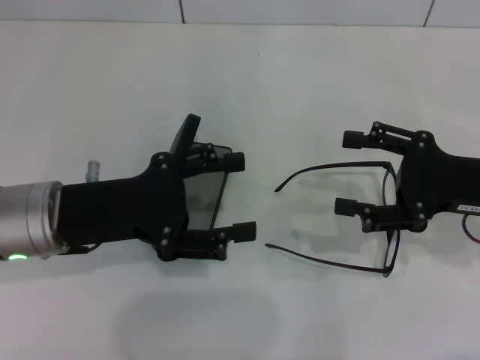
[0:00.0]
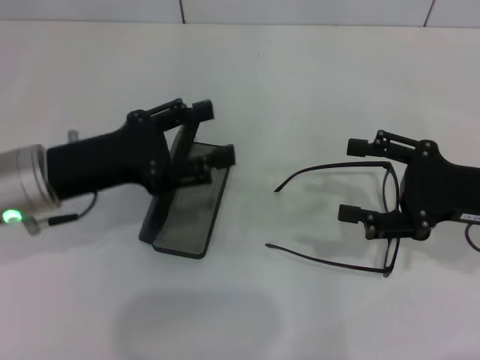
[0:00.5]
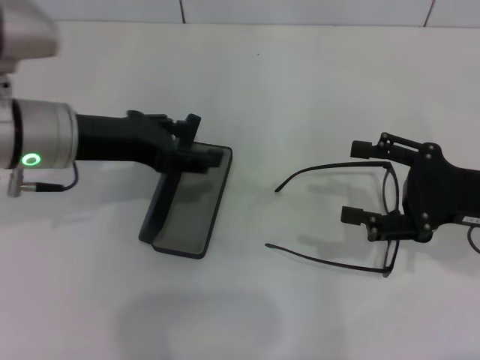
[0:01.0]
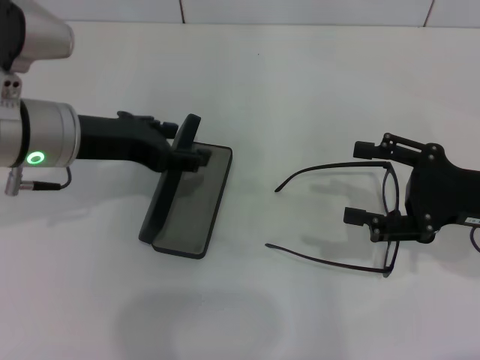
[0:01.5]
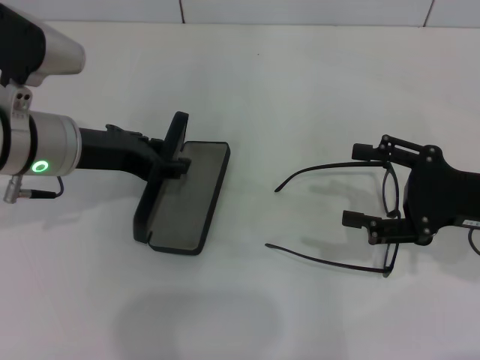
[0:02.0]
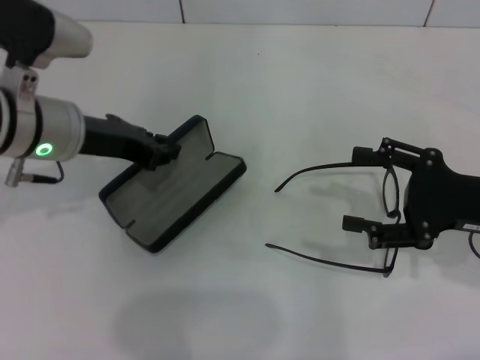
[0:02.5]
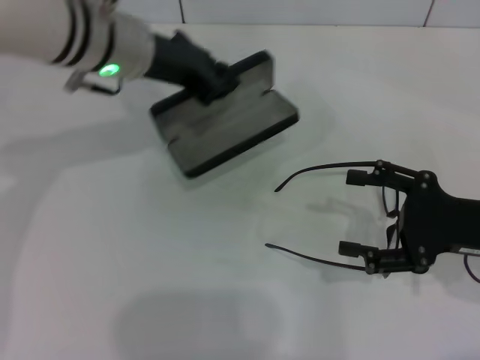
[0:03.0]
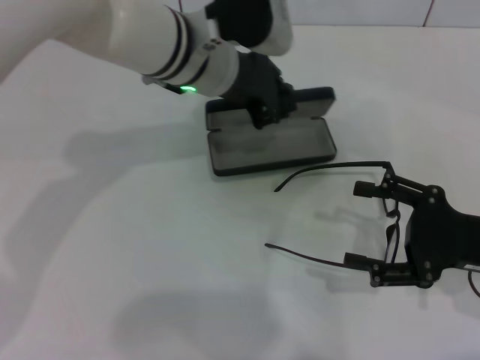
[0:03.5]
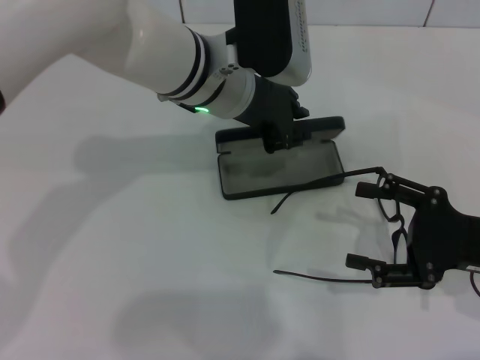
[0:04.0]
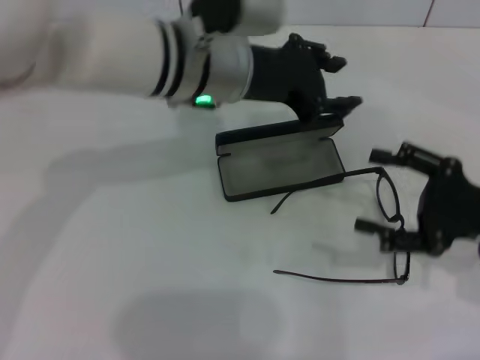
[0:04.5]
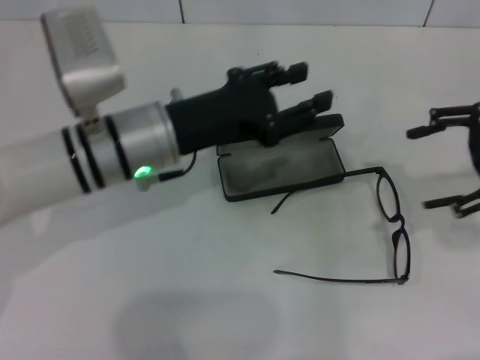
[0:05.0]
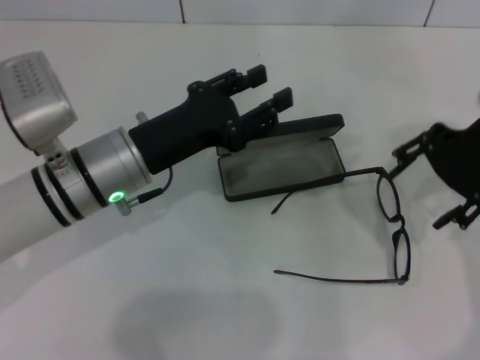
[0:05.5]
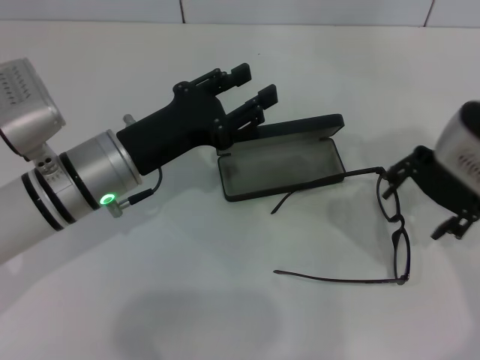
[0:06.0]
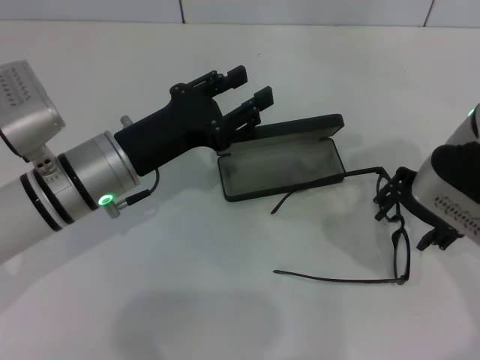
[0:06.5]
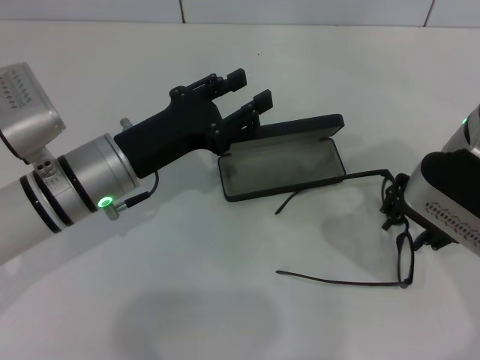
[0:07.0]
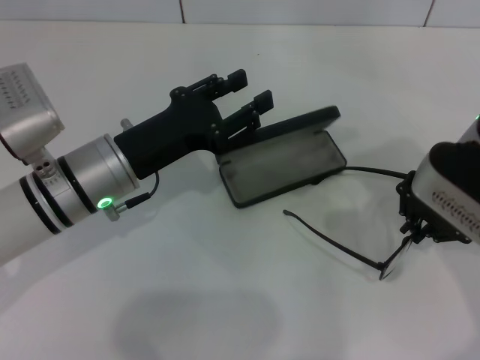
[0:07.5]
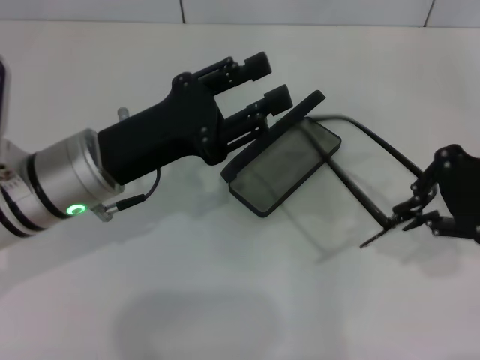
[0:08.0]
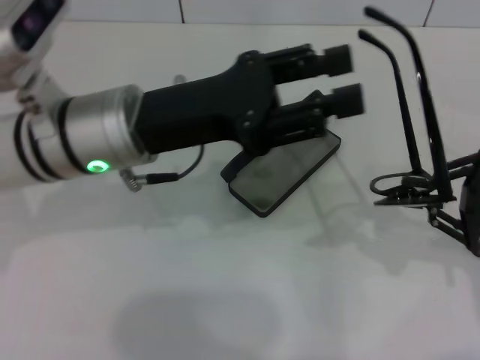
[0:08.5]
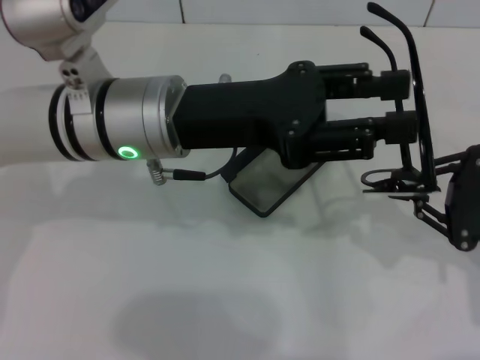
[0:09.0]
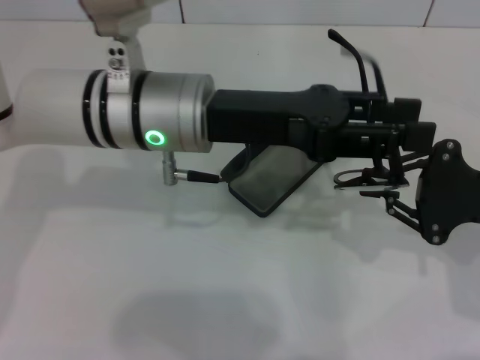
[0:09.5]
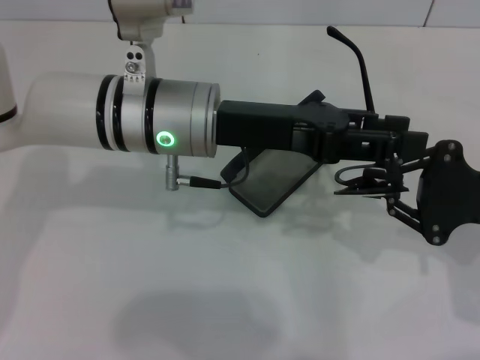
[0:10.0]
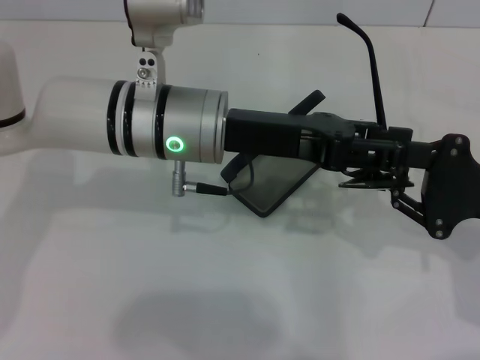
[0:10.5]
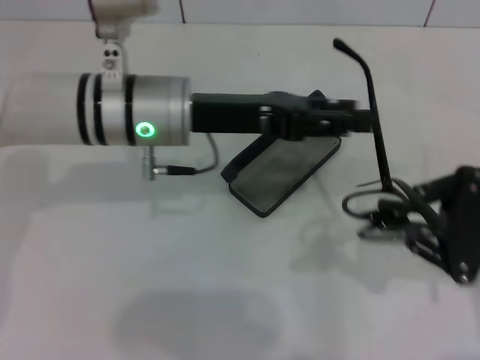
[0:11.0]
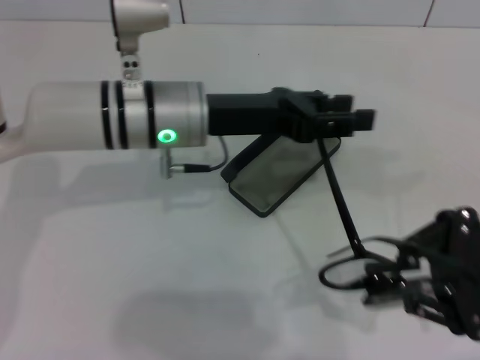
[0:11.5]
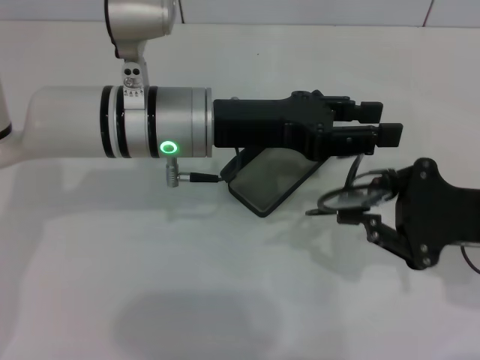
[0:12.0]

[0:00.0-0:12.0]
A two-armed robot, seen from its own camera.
Step, 0:00.0 to 0:02.0: Grab the glasses case with your left hand.
Step, 0:03.0 to 0:04.0: Place the glasses case in the center of the table with your left hand.
Step, 0:04.5 to 0:07.0: Grab the eyeglass frame with your right hand.
0:00.0 to 0:02.0: The left gripper shifts roughly 5 cm forward.
0:02.0 to 0:04.0: The left gripper moves to the right, roughly 15 cm, and closes.
0:04.0 to 0:06.0: The left gripper heads to the left, downward and backward, covering approximately 15 cm, and opens, while the right gripper is displaced upward, forward and to the left by about 20 cm.
0:06.0 to 0:08.0: The right gripper is displaced to the right by approximately 5 cm, and closes up.
0:08.0 to 0:10.0: The right gripper goes approximately 10 cm downward, while the left gripper moves to the right, roughly 10 cm.

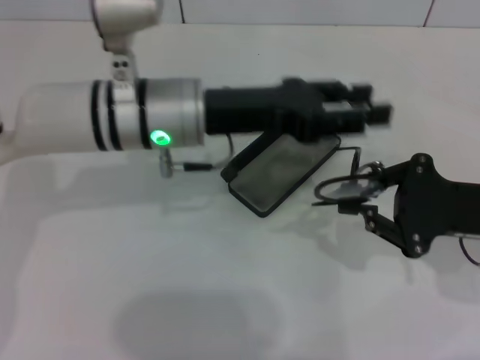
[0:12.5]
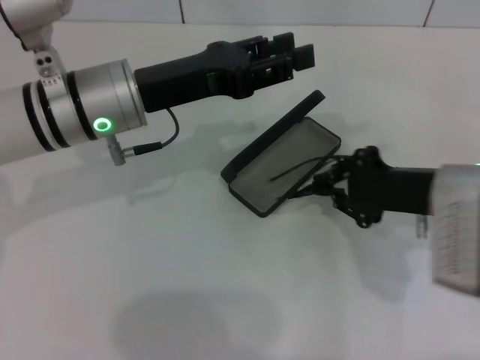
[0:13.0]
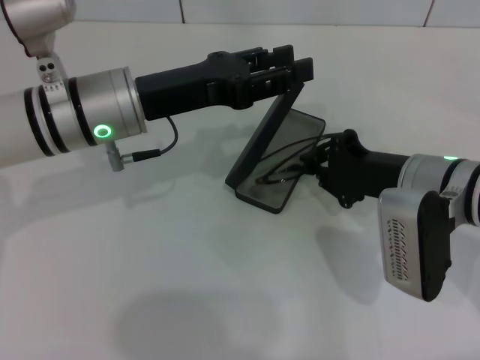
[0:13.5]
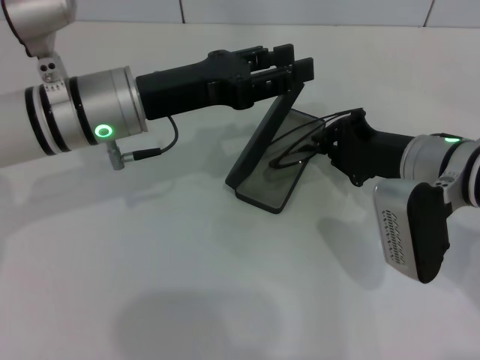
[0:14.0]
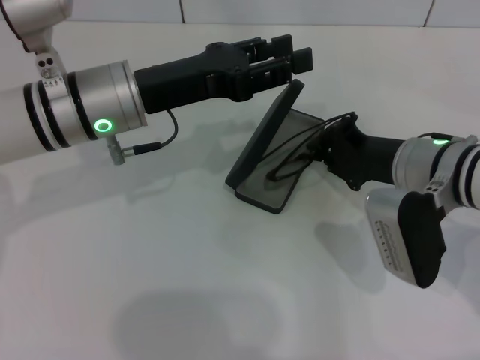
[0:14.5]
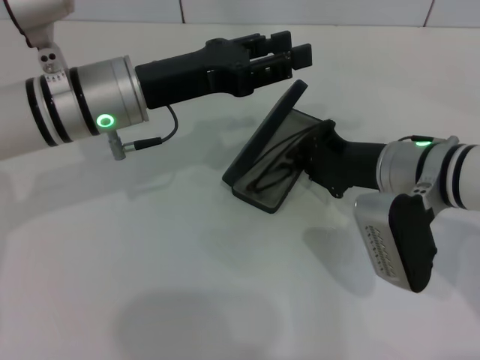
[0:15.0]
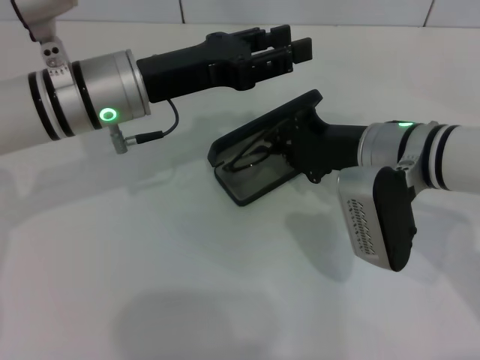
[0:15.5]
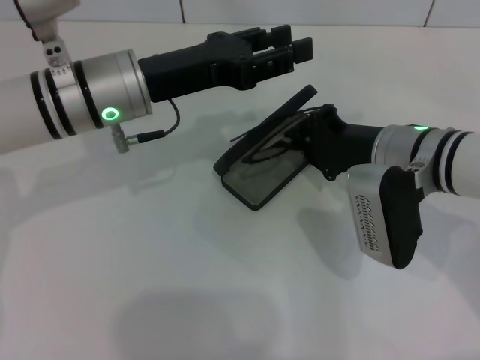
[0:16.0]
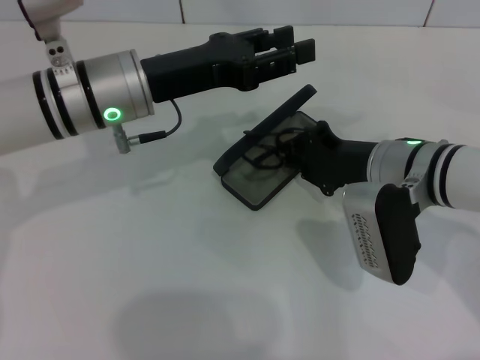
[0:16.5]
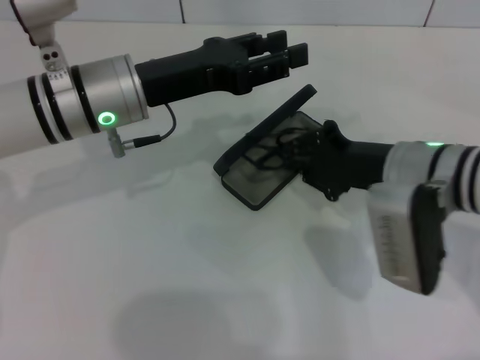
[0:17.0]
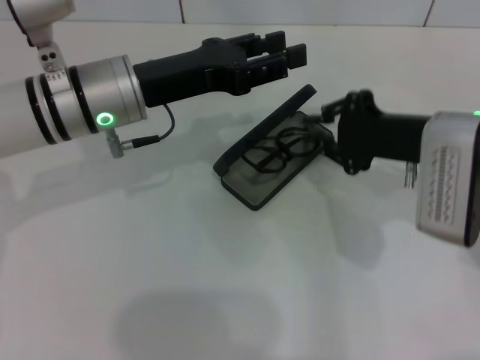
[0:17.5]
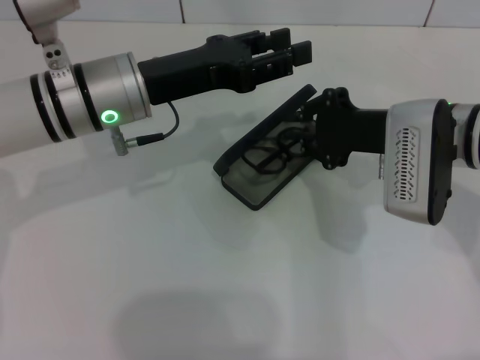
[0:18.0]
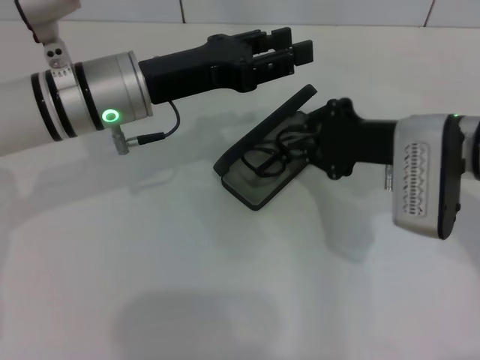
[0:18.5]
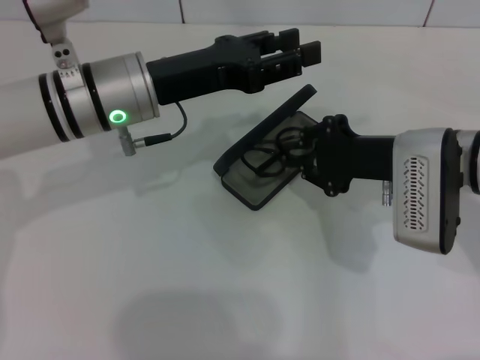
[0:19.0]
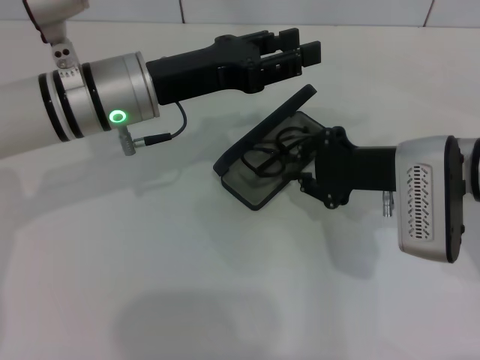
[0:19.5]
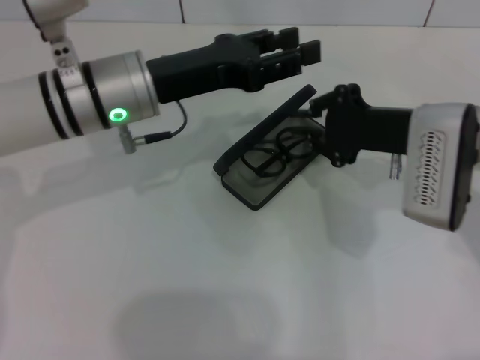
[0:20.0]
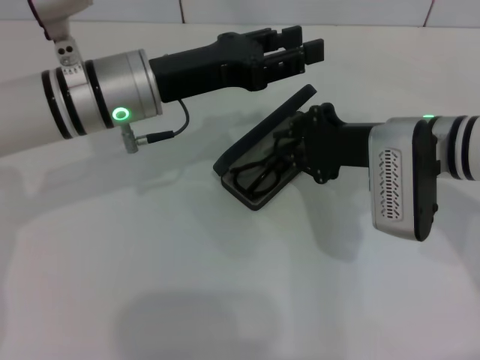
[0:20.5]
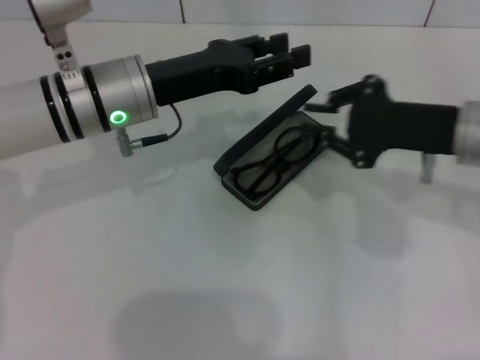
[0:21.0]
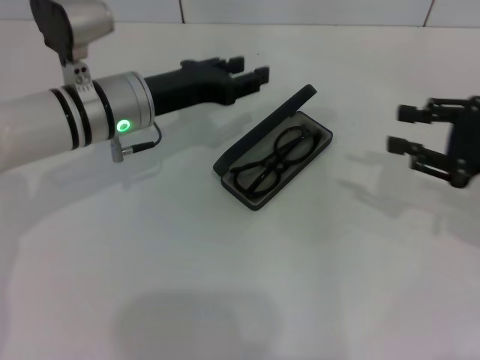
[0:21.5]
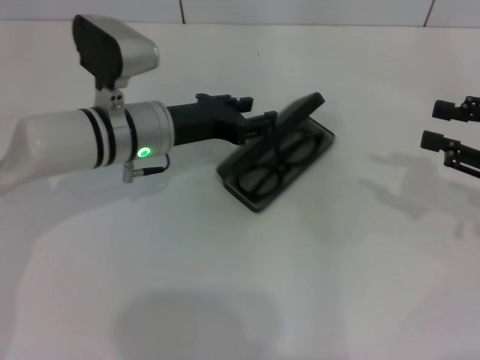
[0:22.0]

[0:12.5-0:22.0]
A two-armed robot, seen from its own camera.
Step, 0:12.5 to 0:17.0: Put the glasses into the case with your right hand.
0:12.5 to 0:14.5: The right gripper heads to the left and forward, covering some 10 cm, while the left gripper shifts by about 5 cm.
0:18.0 to 0:20.0: The grippers move only a little.
0:20.0 to 0:22.0: The right gripper shifts some 15 cm to the right. The left gripper is displaced downward by approximately 5 cm.

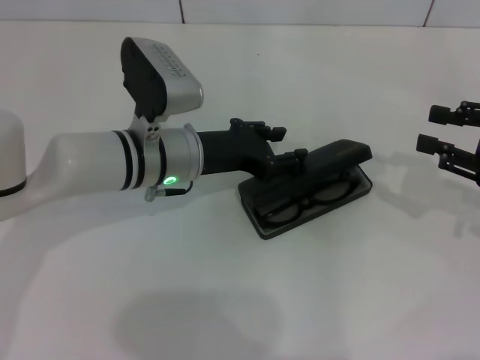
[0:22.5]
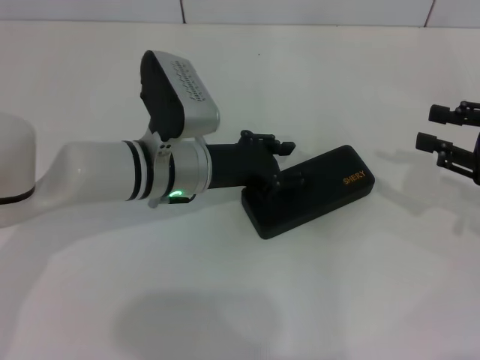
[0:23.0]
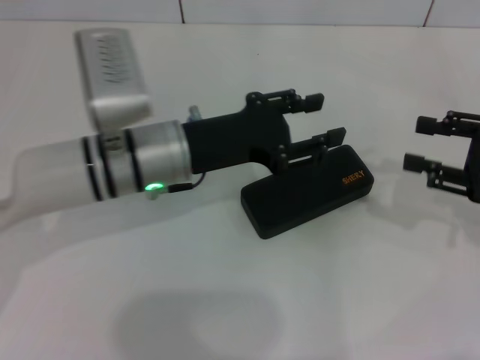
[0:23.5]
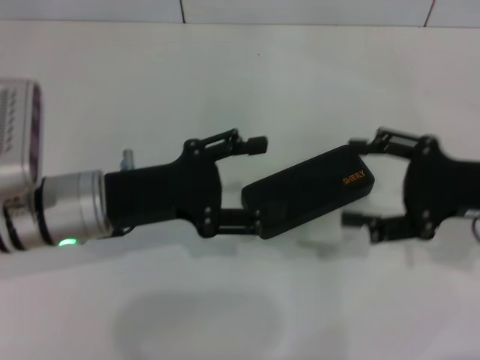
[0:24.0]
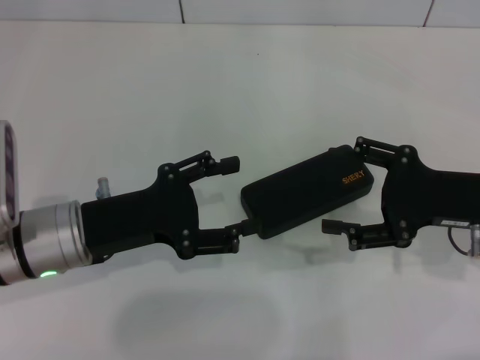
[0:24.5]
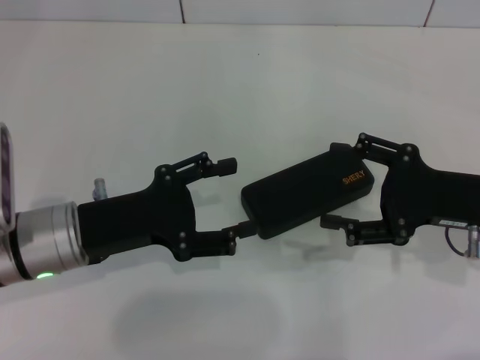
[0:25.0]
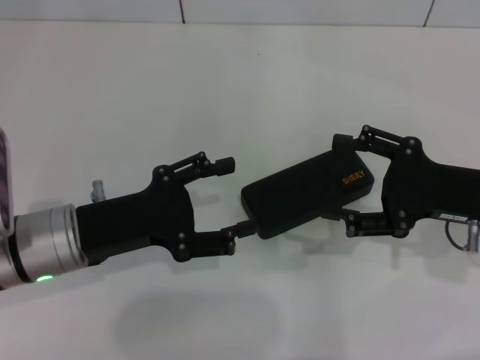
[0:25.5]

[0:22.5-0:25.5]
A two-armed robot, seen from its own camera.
0:22.5 to 0:24.0: The right gripper goes approximately 5 cm to the left, and opens up; the left gripper is displaced to the left and backward by approximately 10 cm.
0:24.0 to 0:25.5: The grippers move only a little.
